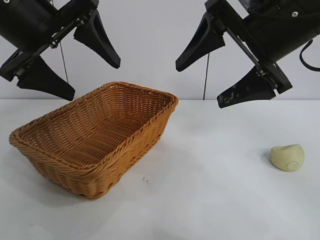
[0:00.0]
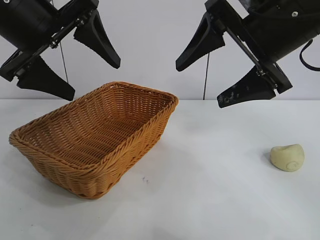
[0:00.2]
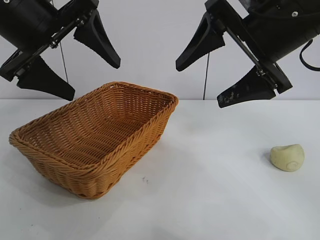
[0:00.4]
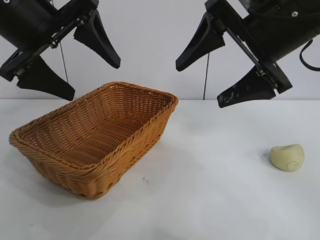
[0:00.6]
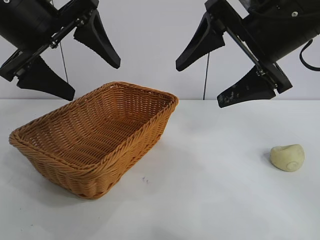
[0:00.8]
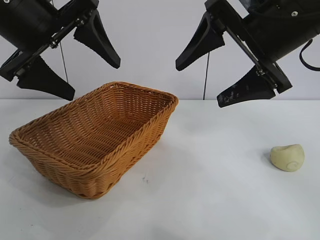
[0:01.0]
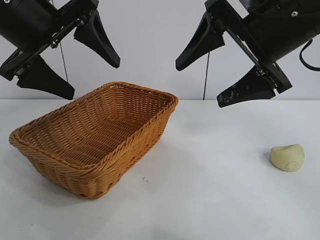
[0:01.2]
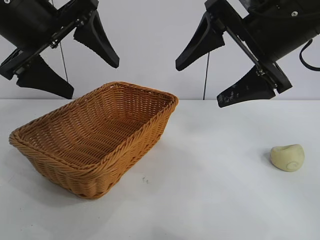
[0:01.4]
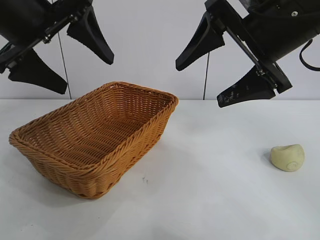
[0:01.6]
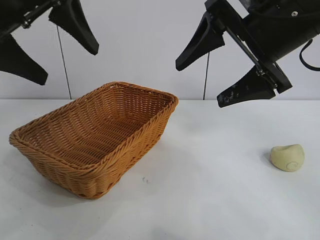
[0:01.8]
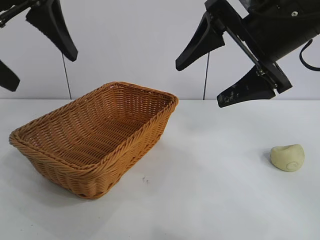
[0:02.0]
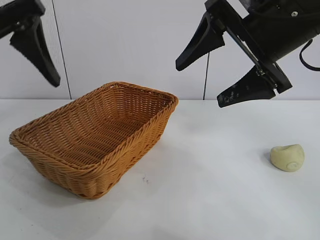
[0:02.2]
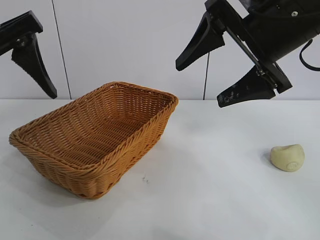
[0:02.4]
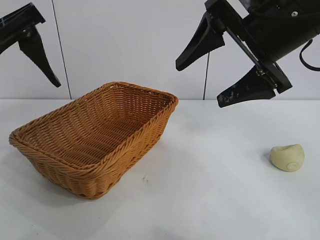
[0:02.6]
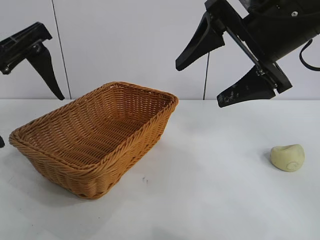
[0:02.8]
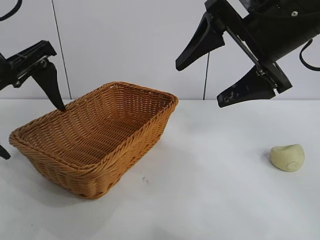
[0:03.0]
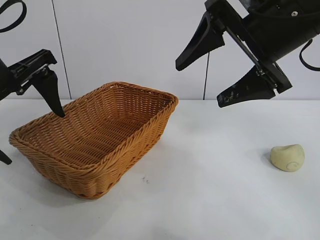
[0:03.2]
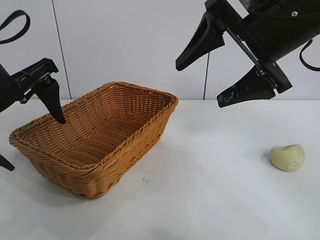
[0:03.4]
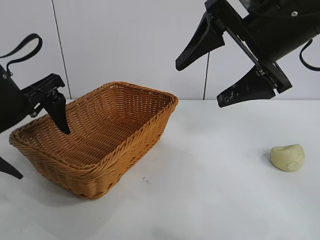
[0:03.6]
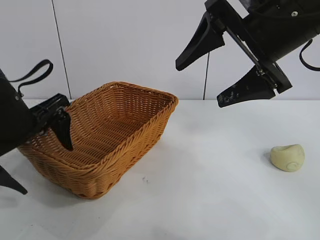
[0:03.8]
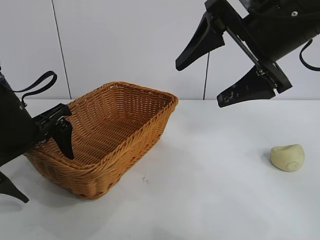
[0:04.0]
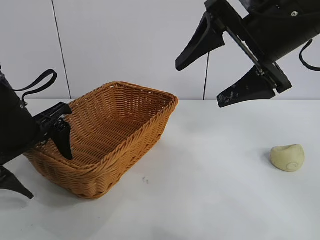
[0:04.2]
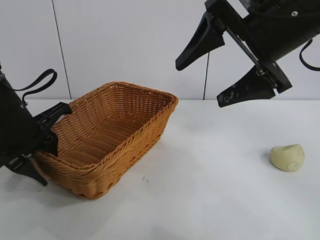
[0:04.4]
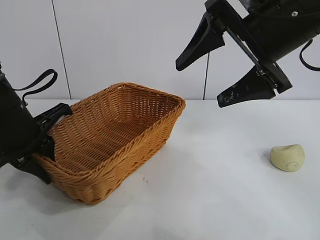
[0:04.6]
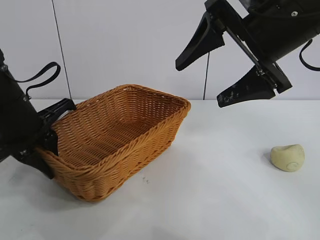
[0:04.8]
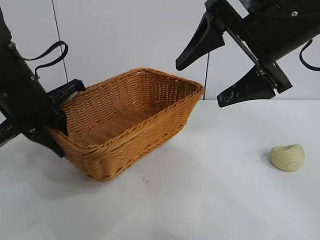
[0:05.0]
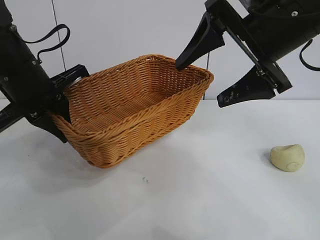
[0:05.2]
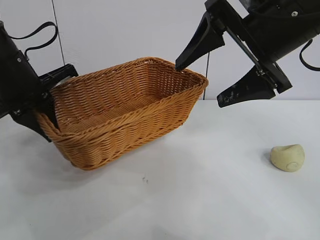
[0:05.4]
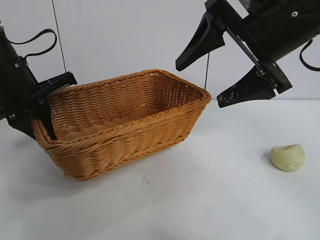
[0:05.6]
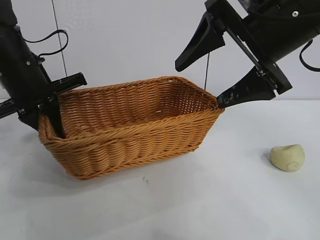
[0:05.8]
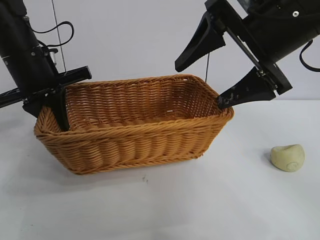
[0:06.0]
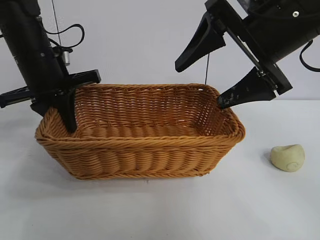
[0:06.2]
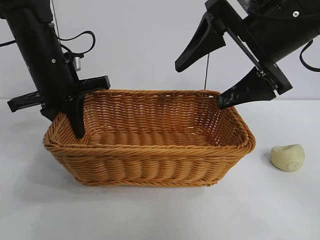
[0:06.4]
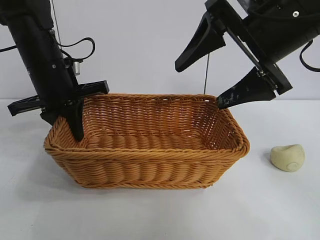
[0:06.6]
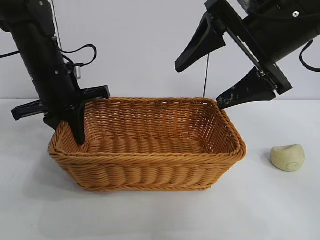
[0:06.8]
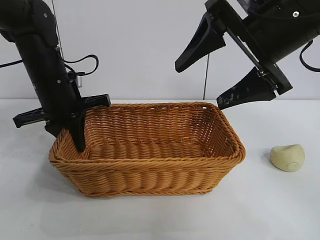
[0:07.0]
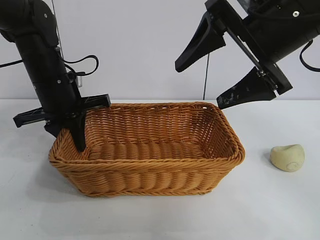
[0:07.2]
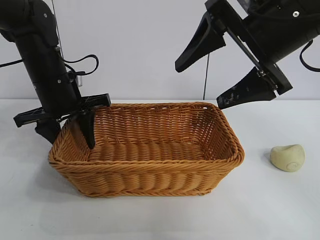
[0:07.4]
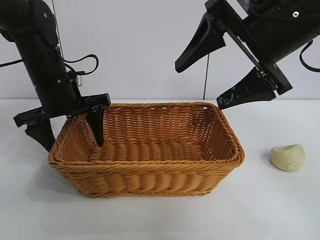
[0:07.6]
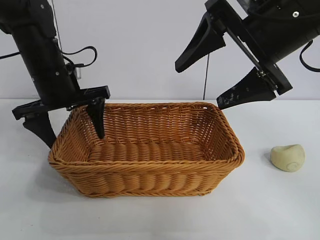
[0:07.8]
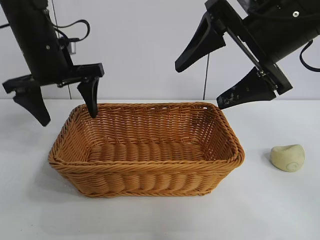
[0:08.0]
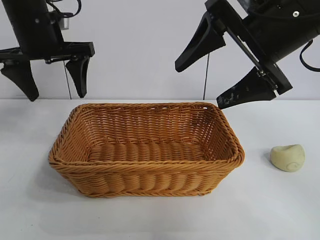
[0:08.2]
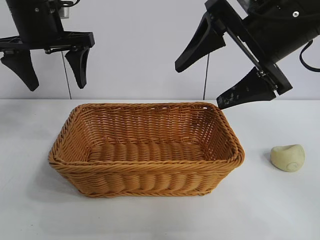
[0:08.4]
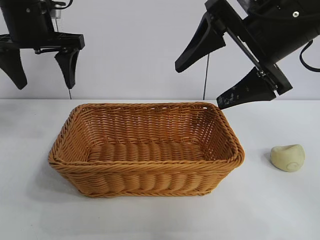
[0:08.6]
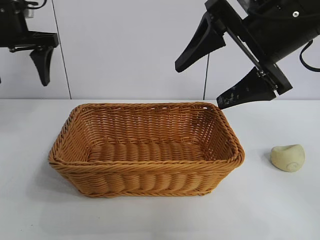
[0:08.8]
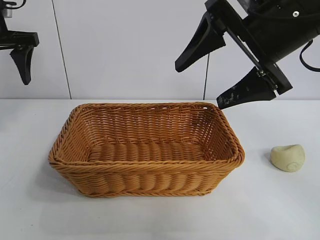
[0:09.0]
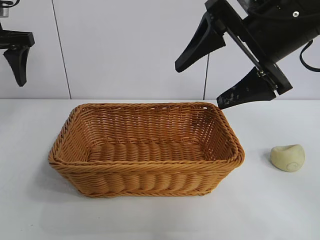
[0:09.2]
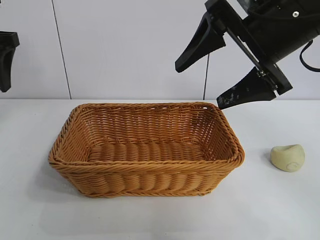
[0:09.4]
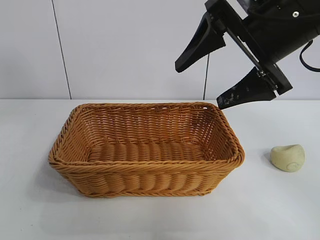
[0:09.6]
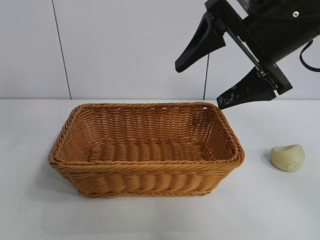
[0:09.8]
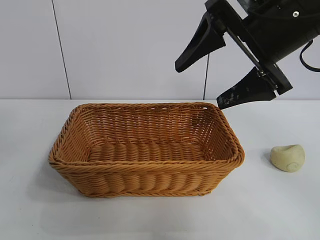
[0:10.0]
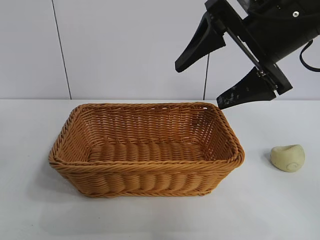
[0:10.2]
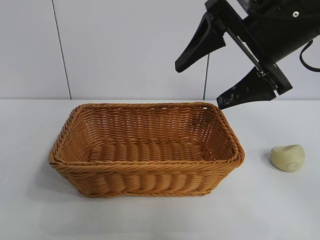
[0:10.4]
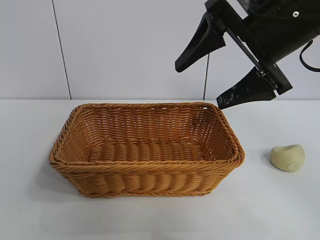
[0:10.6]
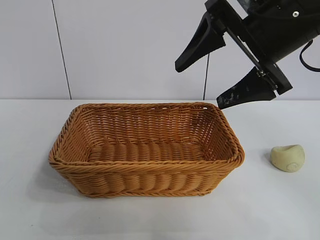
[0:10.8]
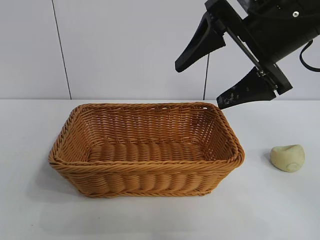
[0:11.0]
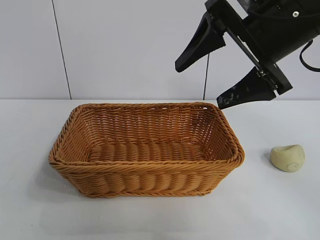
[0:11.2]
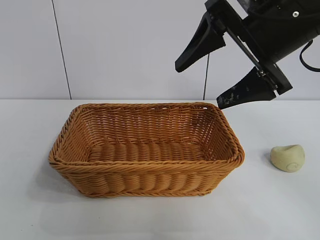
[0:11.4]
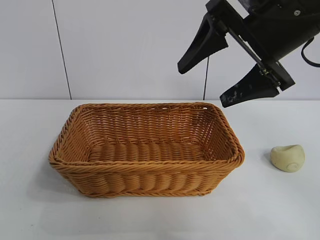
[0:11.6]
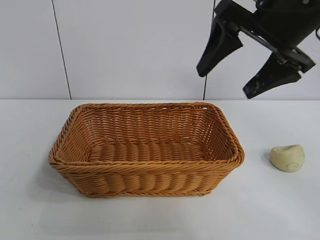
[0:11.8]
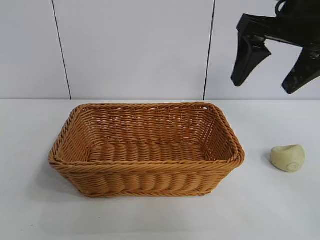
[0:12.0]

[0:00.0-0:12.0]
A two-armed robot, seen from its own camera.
Task of the whole recording: pick up the egg yolk pastry and put it into the basket.
Step, 0:01.0 to 0:04.4: Grasp the basket with left gripper.
Step, 0:04.6 to 0:07.4: Place the basket in the center of view with left gripper.

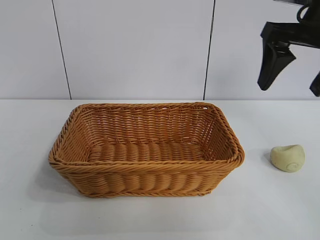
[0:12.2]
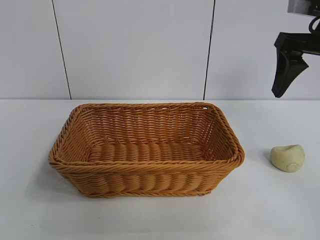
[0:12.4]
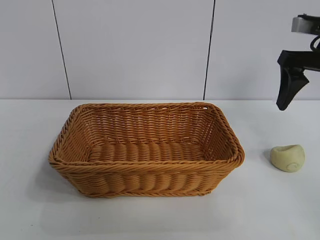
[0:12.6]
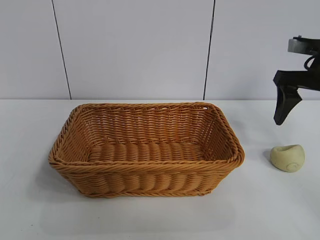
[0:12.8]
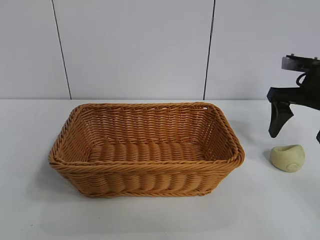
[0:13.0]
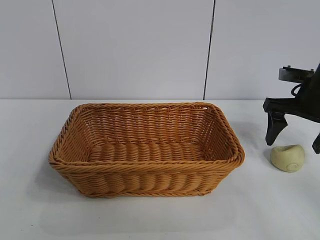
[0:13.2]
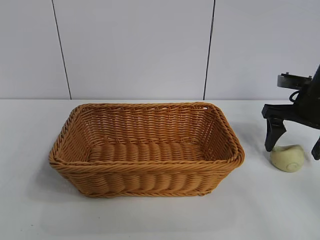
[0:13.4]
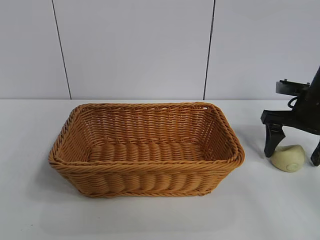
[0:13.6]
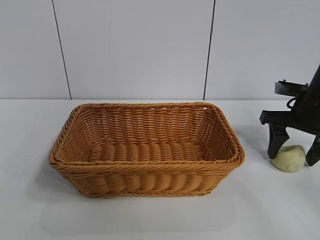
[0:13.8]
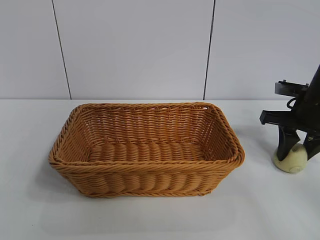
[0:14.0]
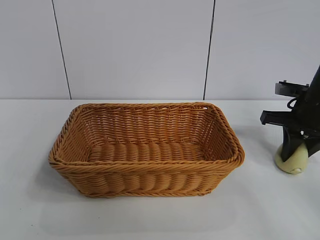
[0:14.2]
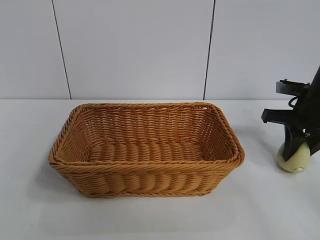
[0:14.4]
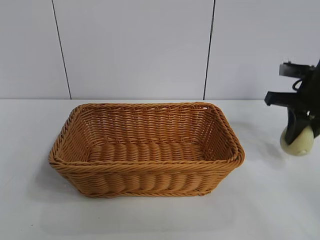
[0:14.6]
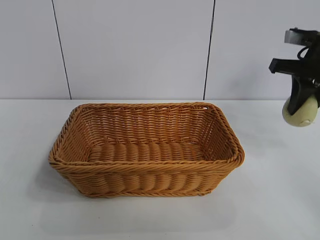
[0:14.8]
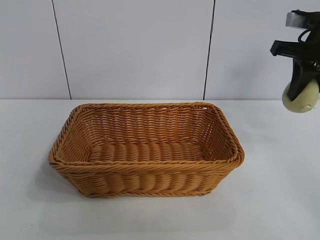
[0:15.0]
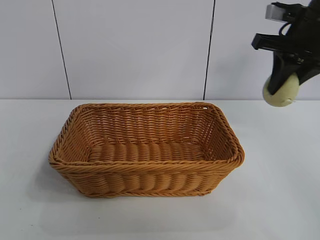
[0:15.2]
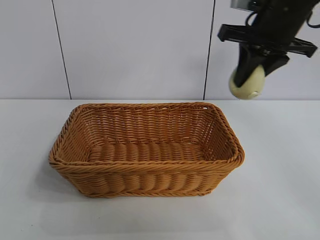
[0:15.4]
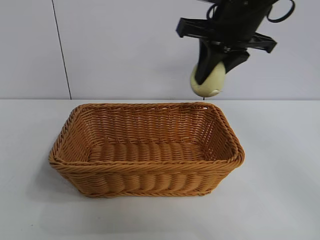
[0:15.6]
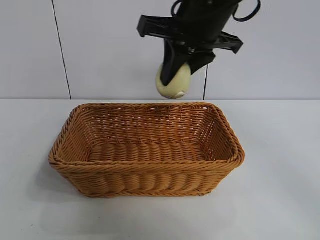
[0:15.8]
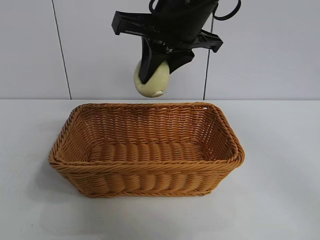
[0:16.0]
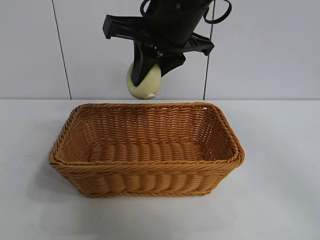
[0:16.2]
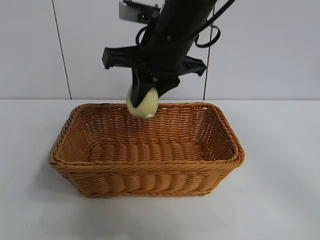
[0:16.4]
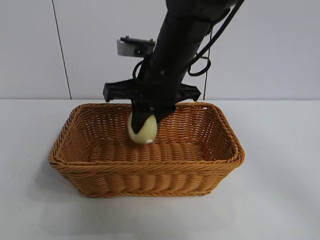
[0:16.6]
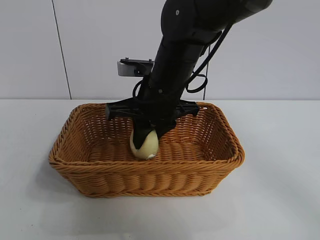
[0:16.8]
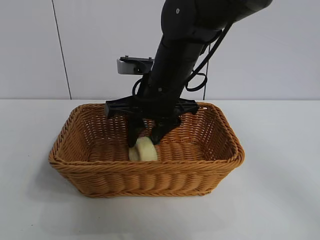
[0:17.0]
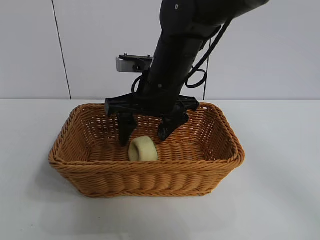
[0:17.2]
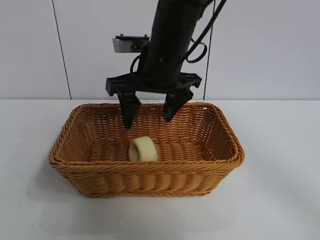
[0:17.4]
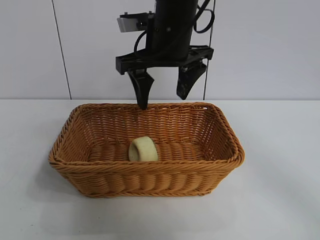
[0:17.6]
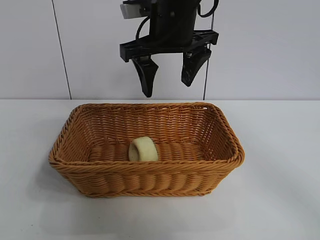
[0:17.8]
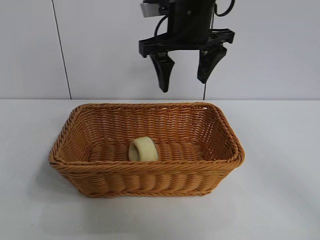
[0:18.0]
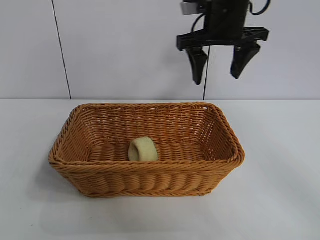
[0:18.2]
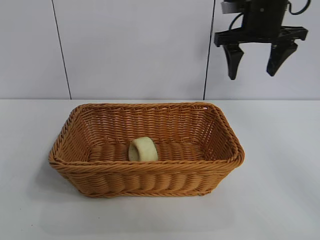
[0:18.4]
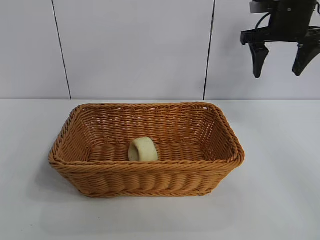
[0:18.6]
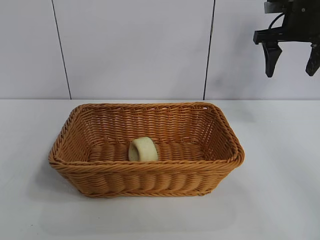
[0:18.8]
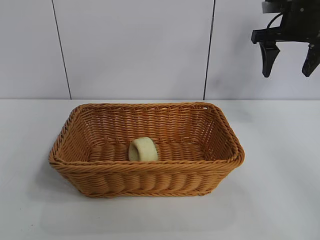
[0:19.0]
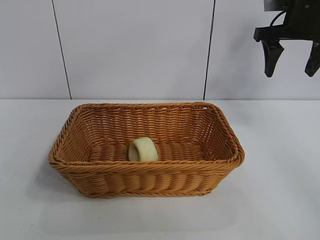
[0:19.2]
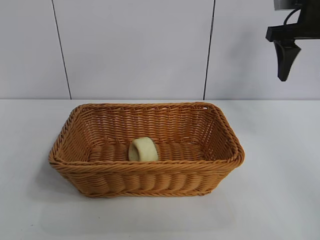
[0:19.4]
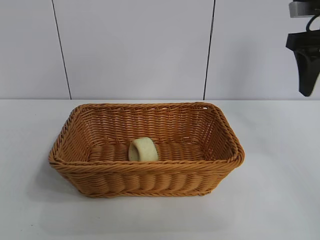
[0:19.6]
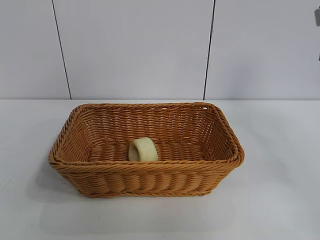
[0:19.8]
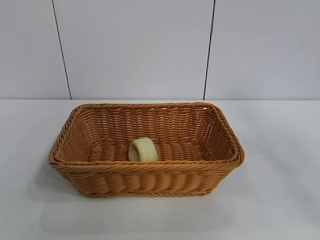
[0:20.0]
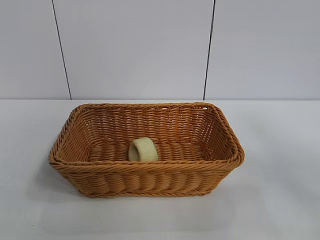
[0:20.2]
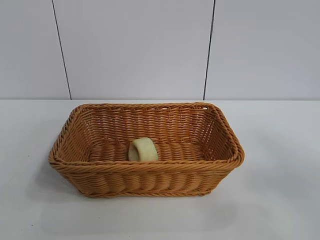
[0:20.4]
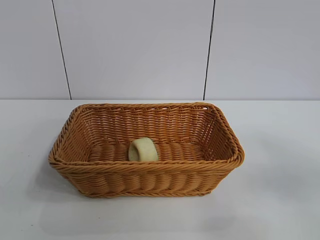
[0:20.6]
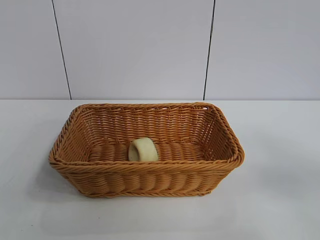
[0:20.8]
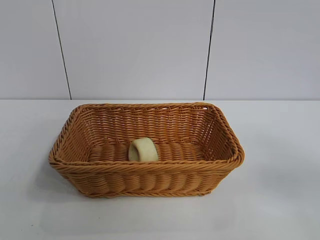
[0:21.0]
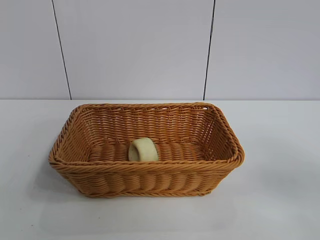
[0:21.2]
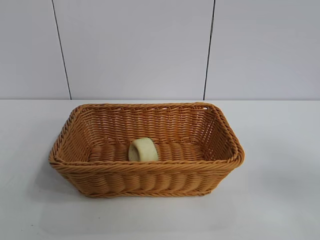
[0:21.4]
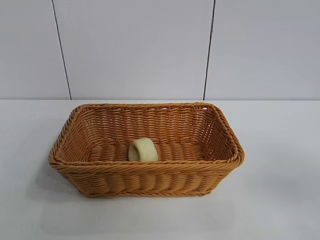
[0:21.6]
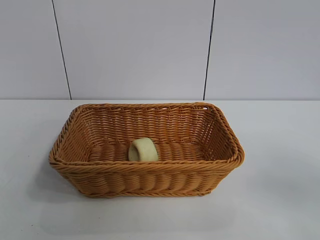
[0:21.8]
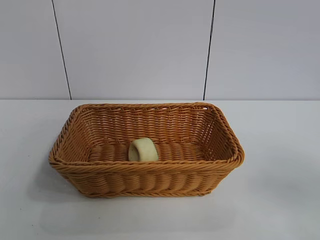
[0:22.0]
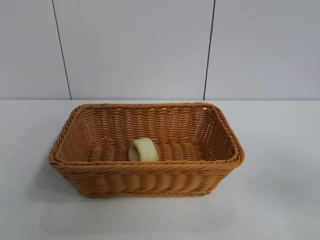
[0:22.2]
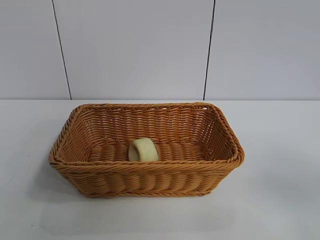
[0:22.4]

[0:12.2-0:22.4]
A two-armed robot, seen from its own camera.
Task of the whole recording: pick up the egg yolk pastry and put it into the basket.
Step, 0:14.2 to 0:17.0: Place the egg yolk pastry in the basket with right gripper.
